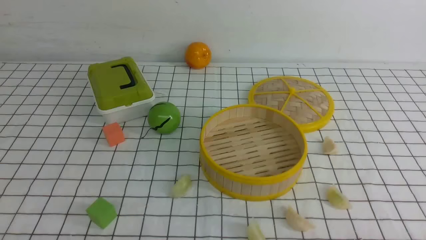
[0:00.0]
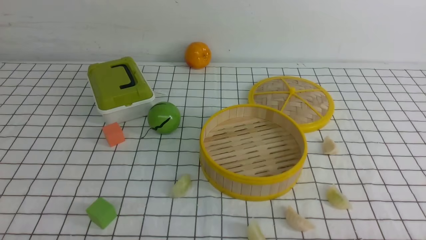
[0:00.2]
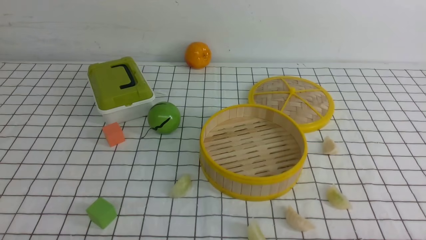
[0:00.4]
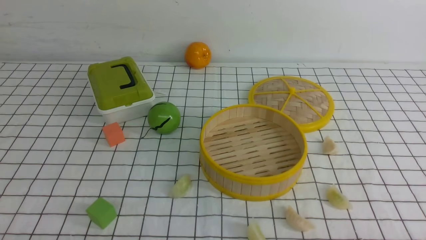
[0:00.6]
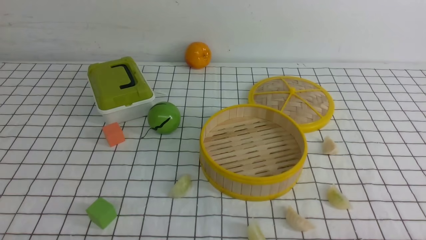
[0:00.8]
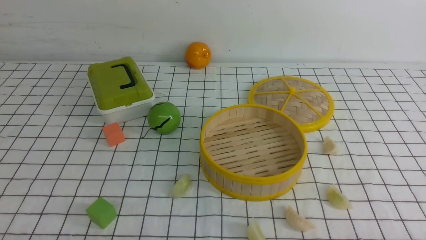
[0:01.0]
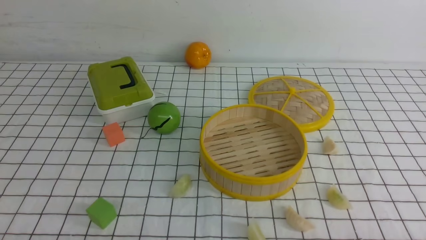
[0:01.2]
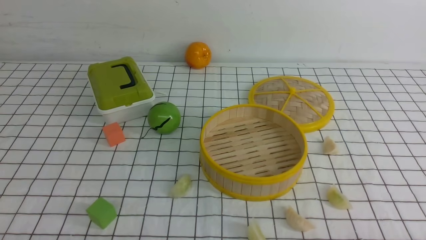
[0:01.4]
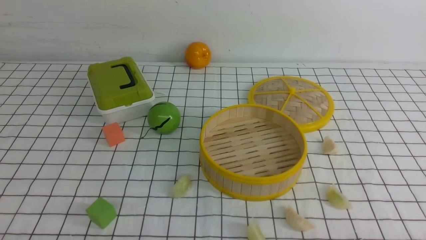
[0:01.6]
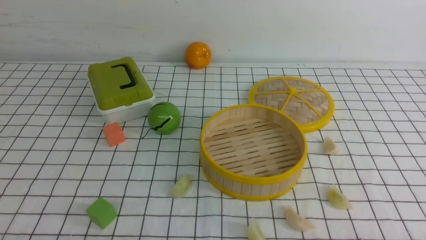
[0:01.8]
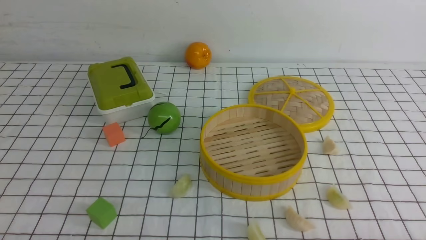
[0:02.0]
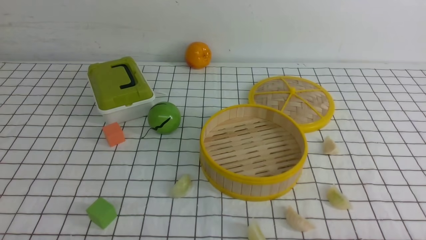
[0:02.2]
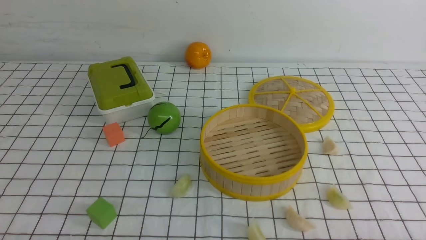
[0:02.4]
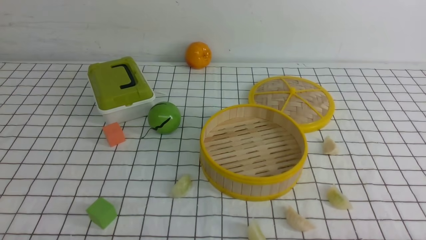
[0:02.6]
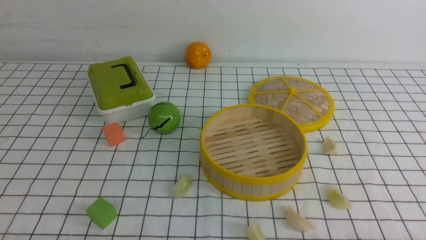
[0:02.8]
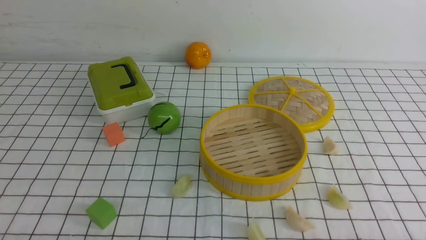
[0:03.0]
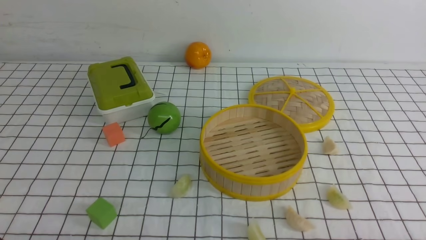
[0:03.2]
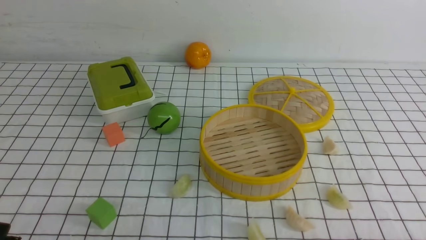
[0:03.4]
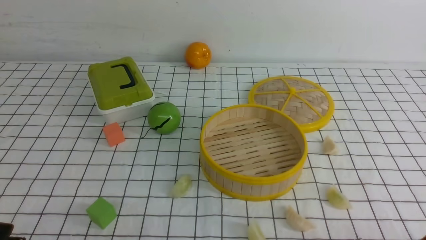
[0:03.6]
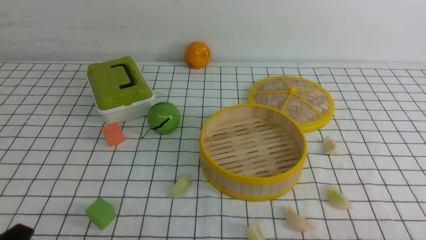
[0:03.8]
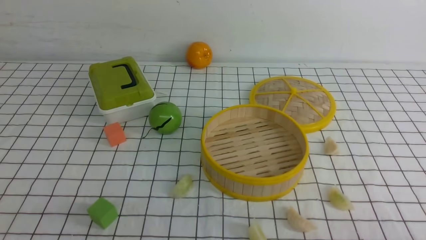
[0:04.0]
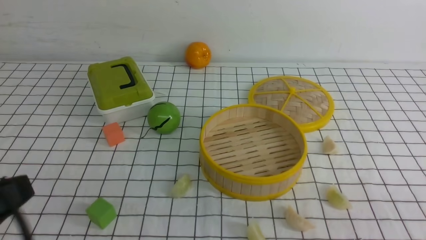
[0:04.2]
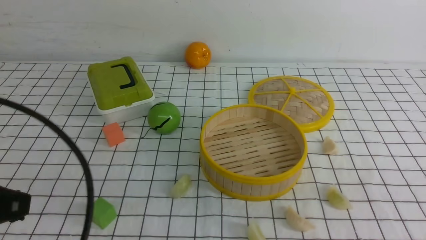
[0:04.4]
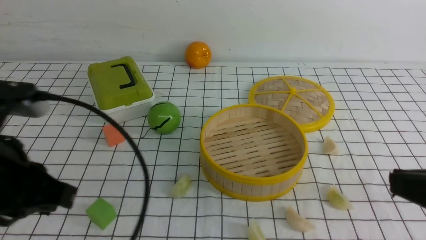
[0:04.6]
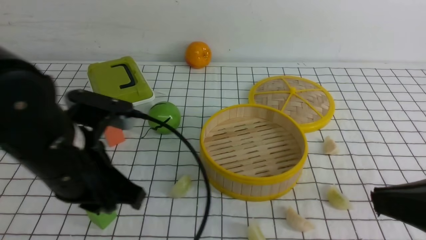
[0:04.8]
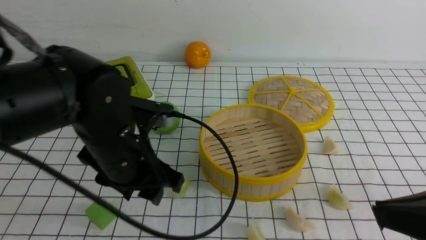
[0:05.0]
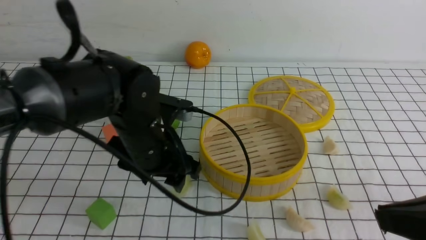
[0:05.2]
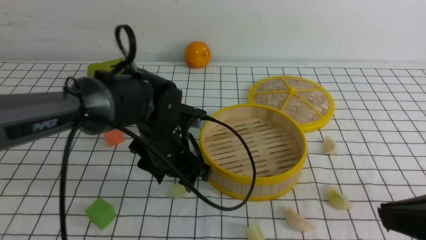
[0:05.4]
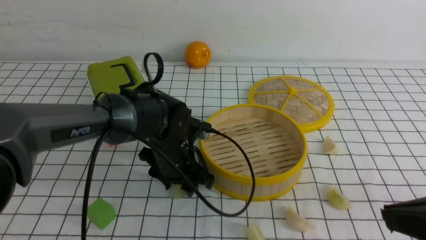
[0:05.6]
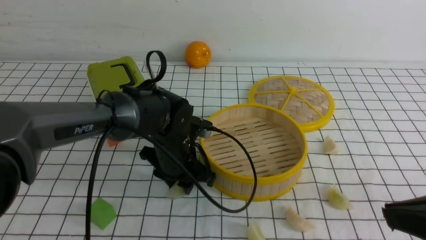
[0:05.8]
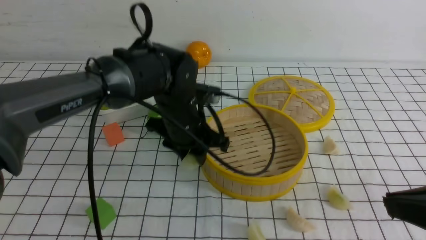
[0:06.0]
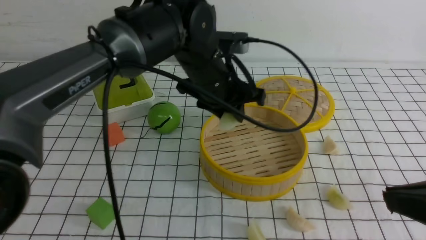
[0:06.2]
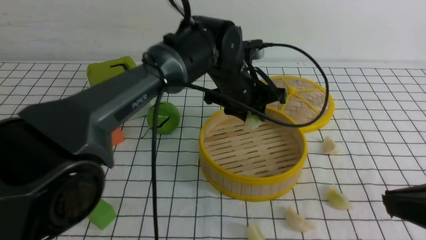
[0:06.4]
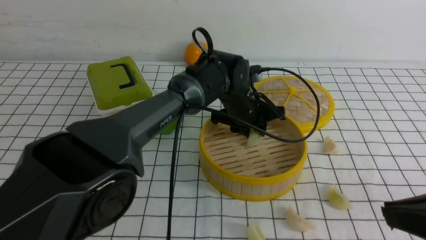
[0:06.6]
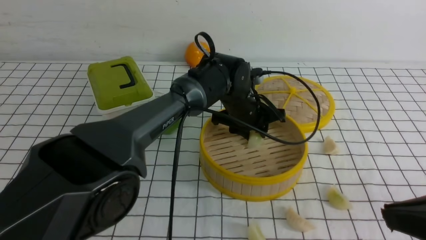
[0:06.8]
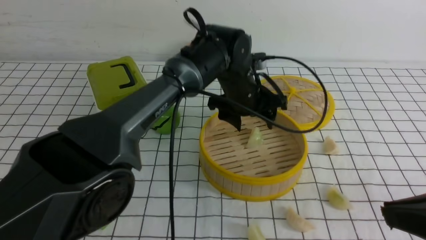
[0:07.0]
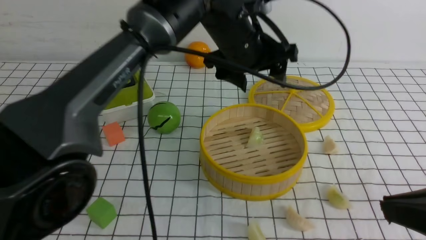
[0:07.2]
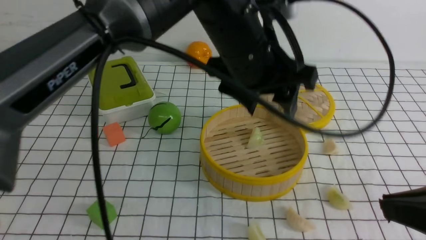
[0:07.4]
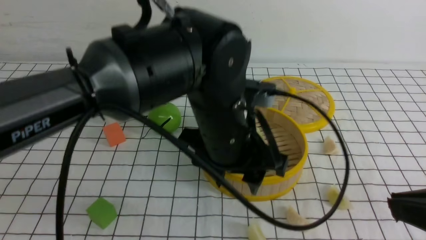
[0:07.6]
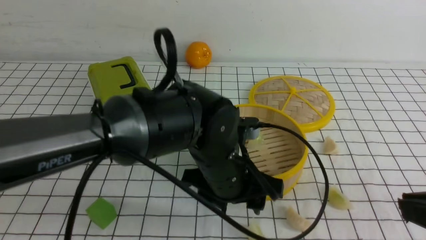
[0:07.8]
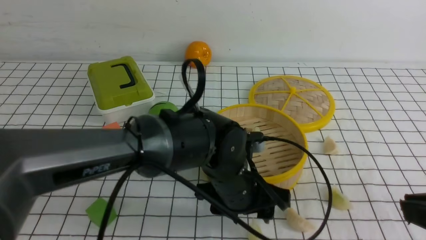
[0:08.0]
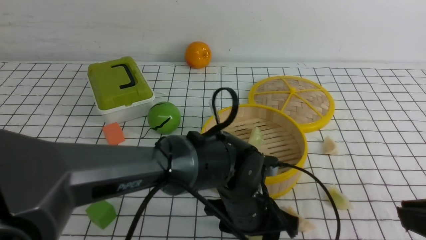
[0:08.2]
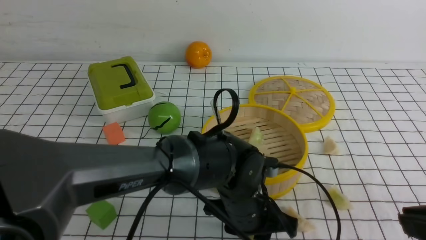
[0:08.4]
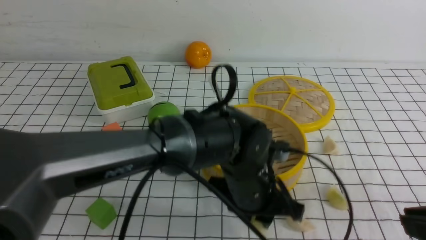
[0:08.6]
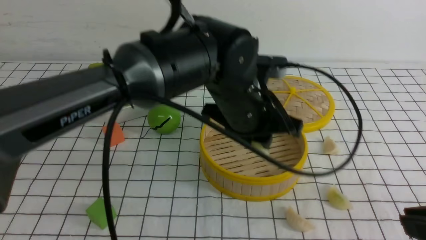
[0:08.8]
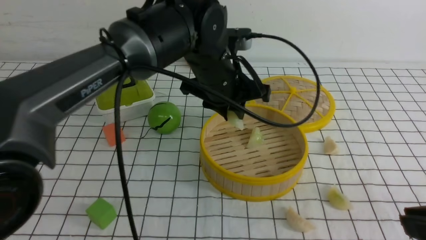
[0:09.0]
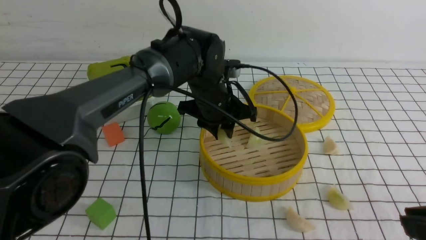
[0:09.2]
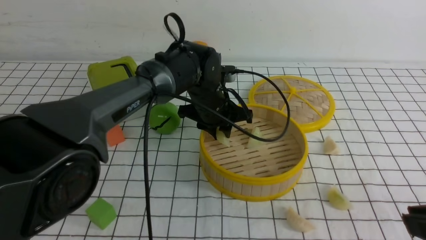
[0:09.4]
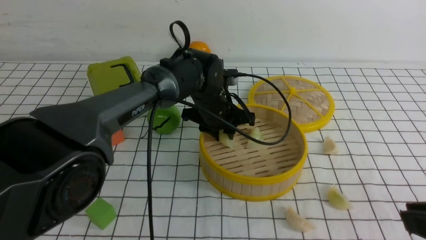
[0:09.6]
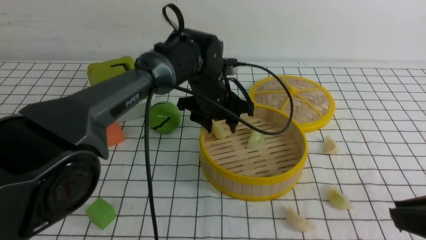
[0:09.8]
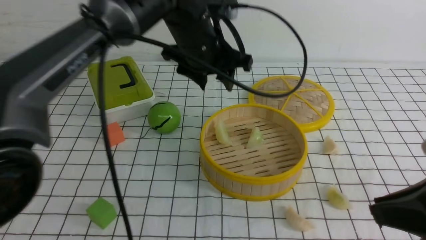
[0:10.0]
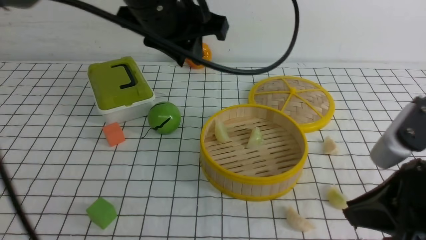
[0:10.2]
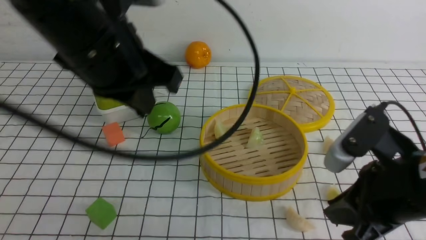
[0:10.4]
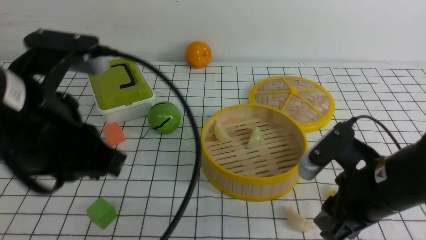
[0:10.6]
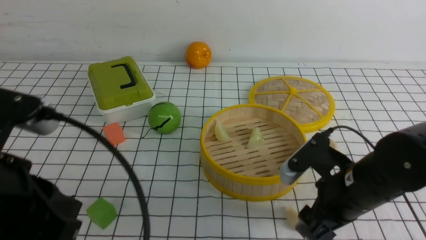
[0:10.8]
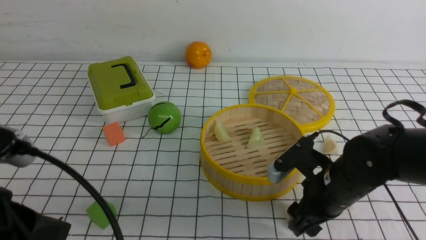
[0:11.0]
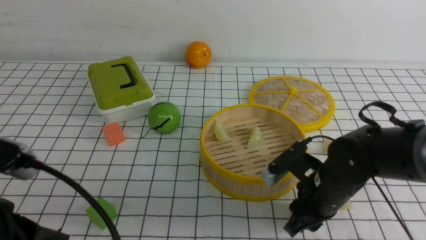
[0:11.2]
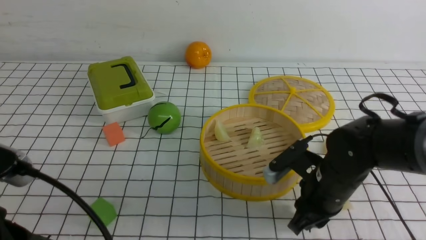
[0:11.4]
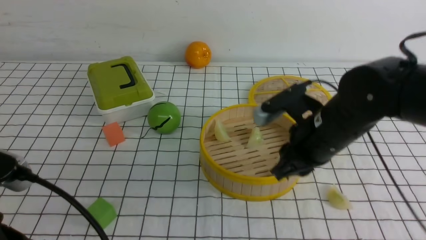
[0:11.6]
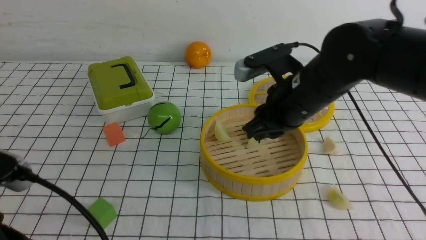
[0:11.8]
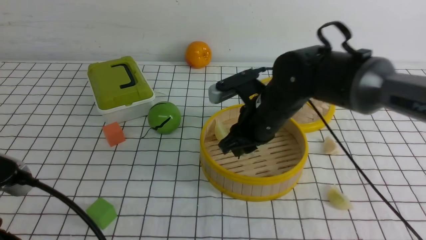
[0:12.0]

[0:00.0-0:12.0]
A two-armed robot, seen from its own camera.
Task of the whole recording: put the dumplings into the steamer on the table with the white tablecloth.
Step, 0:00.0 to 0:06.2: use the left arm to grab a dumpling.
Step, 0:06.4 to 0:07.2: use the left arm to put the dumpling into the steamer.
Step, 0:07.4 to 0:08.8: use the left arm to grab a dumpling.
Step, 0:09.2 to 0:09.8: use the left arm to put the dumpling into the steamer.
Step, 0:10.0 to 0:11.6: use the right arm to grab a dumpling.
0:03.0 to 0:04.4: The left gripper goes some 15 cm upward.
0:04.4 to 0:06.0: The right gripper ends up approximately 5 cm from where it was, while the left gripper is displaced forward, to the right and downward by some 35 cm, and opens its fingers.
0:06.0 to 0:07.6: The left gripper swings up and down, approximately 15 cm each way, with 2 reversals, and opens up.
0:07.6 to 0:09.0: The left gripper reaches roughly 15 cm downward, then returns, and closes its fingers.
0:09.0 to 0:10.4: The right gripper goes about 10 cm forward, while the left gripper moves upward, to the left and backward, about 20 cm.
0:10.4 to 0:12.0: The right gripper goes about 20 cm forward and to the left, and opens, then closes once more. The left gripper moves backward, to the left and downward, roughly 25 cm.

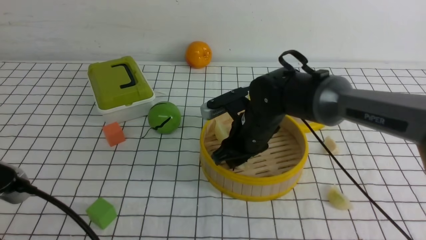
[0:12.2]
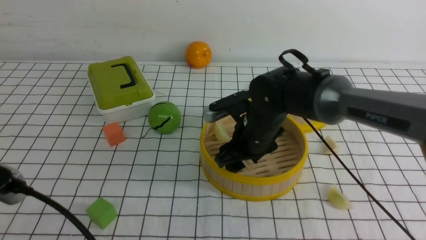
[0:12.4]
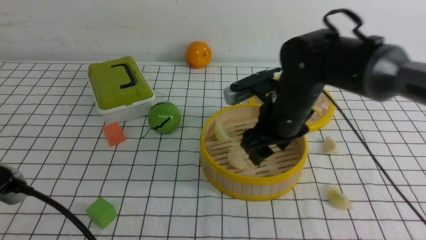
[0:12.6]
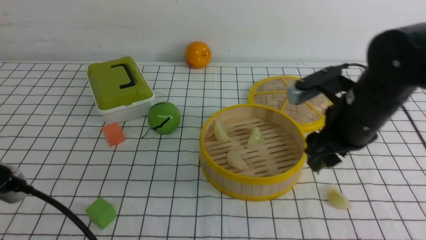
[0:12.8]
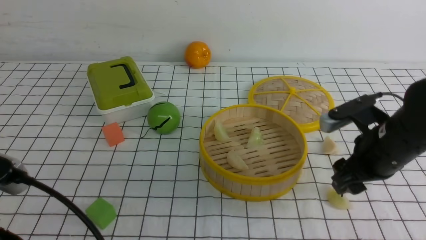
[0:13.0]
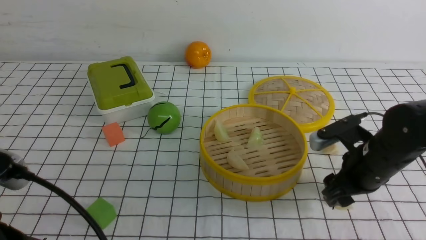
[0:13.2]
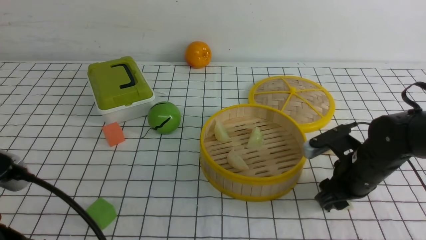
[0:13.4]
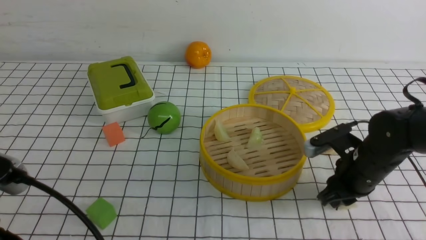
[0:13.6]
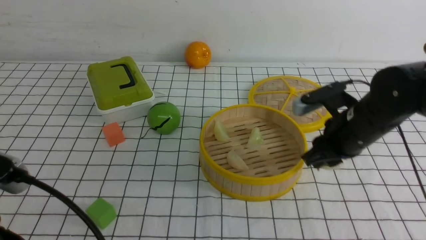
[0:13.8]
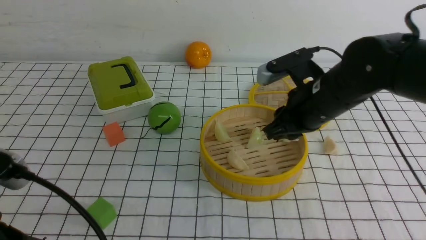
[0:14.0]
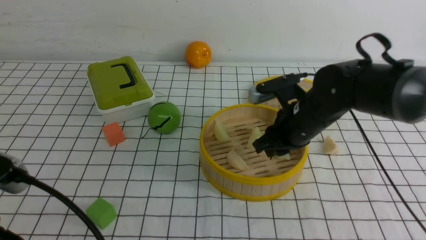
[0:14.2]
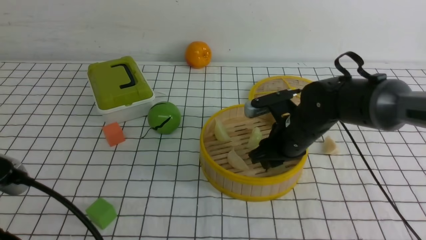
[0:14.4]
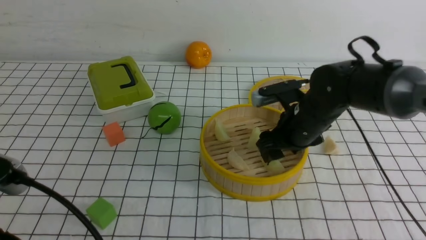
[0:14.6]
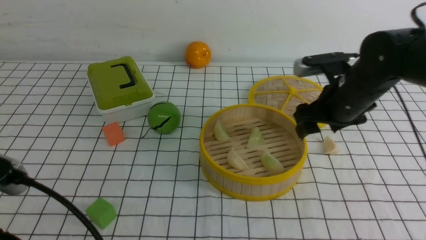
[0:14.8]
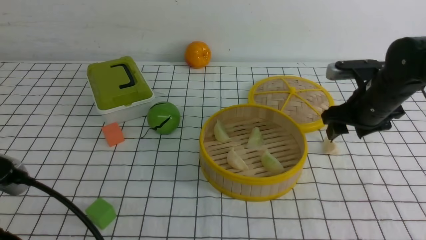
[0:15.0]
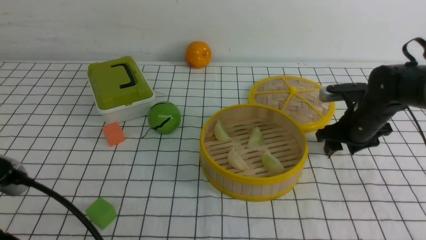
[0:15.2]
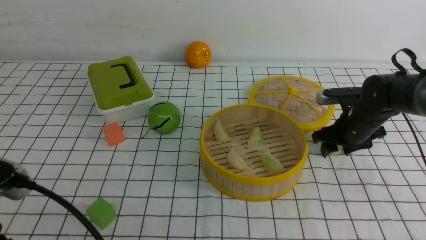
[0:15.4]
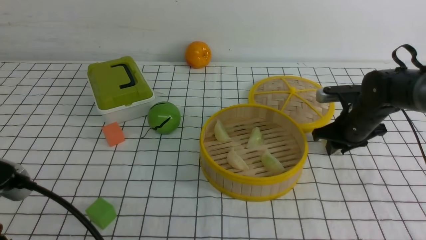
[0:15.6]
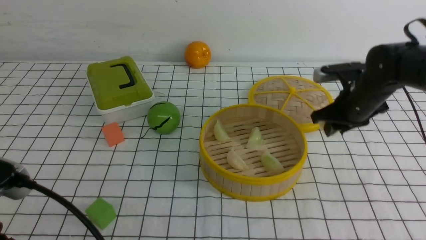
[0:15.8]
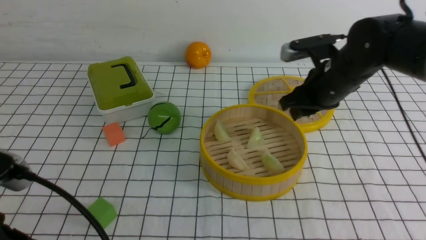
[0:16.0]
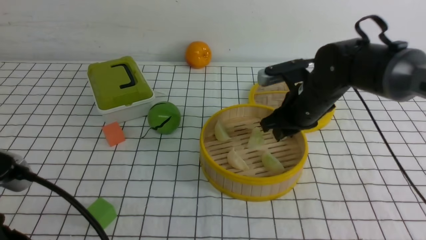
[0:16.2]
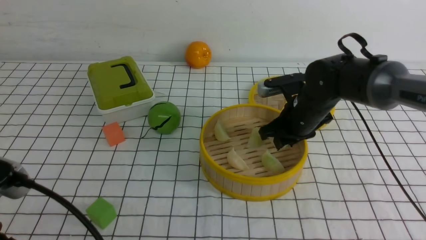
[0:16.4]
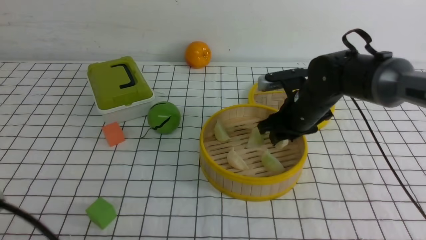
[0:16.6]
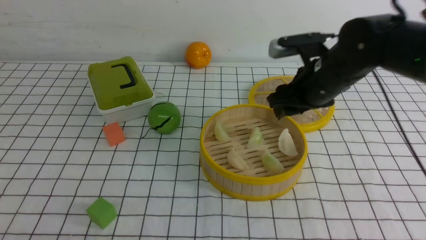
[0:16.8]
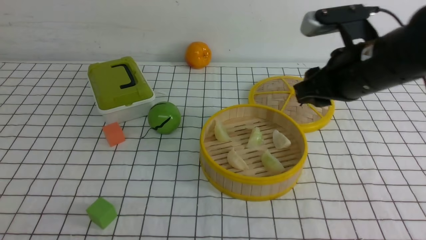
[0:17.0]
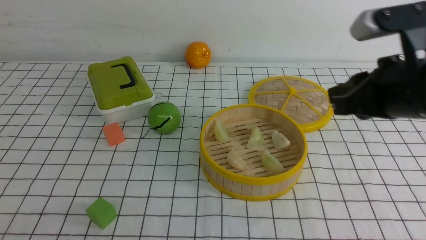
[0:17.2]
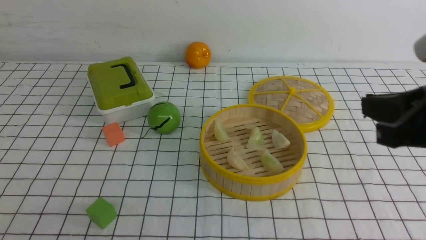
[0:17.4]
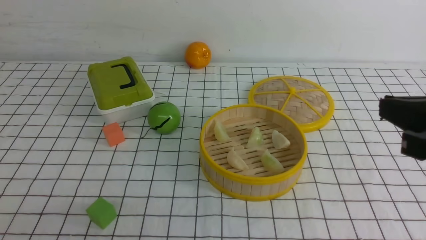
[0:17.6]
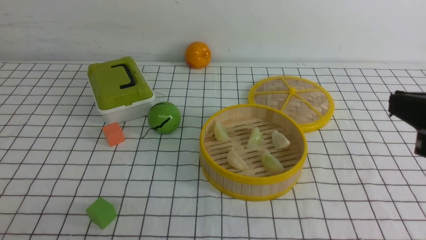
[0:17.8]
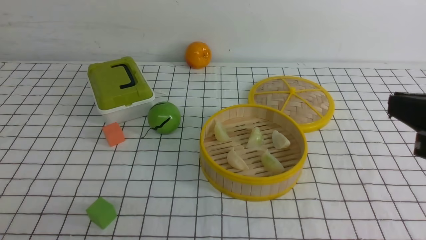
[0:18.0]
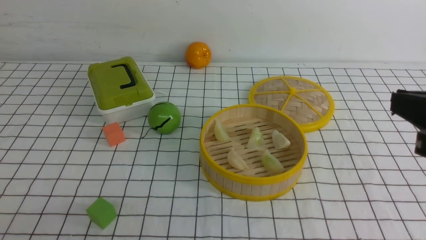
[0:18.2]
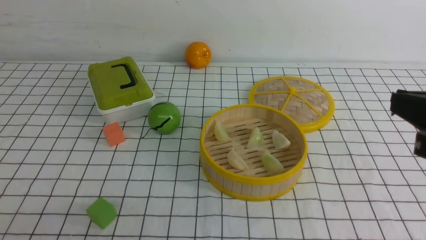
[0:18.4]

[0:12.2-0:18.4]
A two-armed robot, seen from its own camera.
Task of the whole recording: put the dumplings into the steamer on the table with the white tablecloth.
Step, 0:12.8 to 0:13.8: use the right arm to grab a dumpling.
Step, 0:14.0 to 0:15.0: use the right arm to put the dumpling into the steamer.
Step, 0:15.2 to 0:16.0: use the right arm to grab a dumpling.
Step, 0:16.2 to 0:16.8: use the right arm to put the dumpling into the steamer.
0:12.2 to 0:13.8: The right gripper travels to the right by some 15 cm, and opens, then closes again.
0:13.8 to 0:15.4: The right gripper goes roughly 10 cm forward and to the right.
0:15.4 to 0:16.8: The right gripper moves upward, to the left and backward, some 15 cm. The left gripper shifts roughly 5 cm backward.
0:16.8 to 0:18.4: The right gripper goes about 20 cm backward, and closes.
